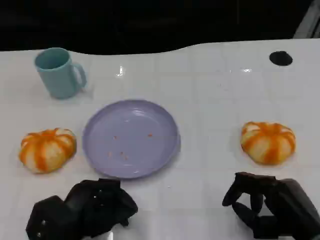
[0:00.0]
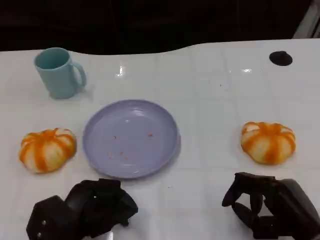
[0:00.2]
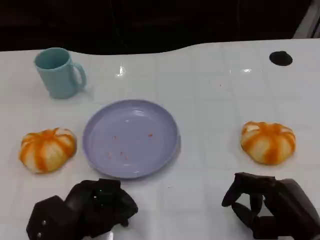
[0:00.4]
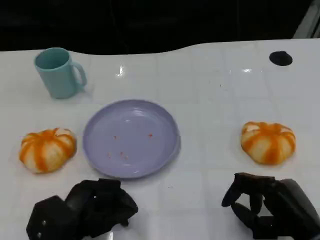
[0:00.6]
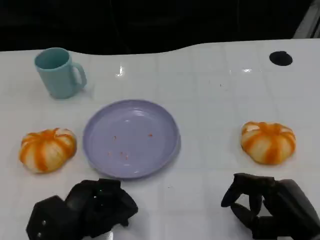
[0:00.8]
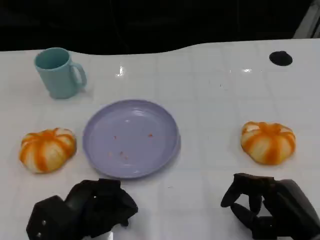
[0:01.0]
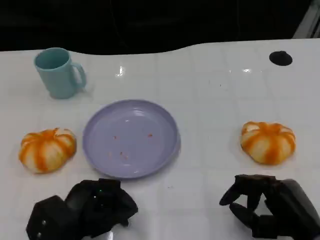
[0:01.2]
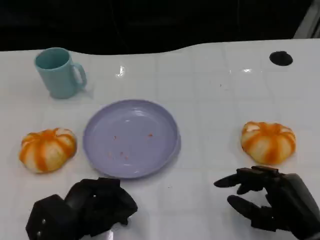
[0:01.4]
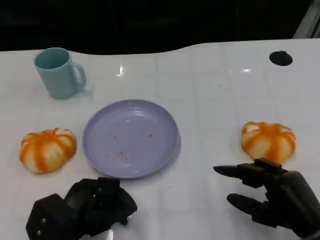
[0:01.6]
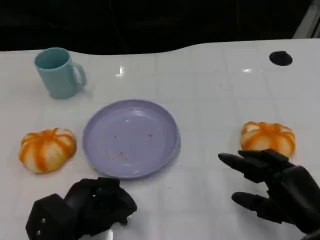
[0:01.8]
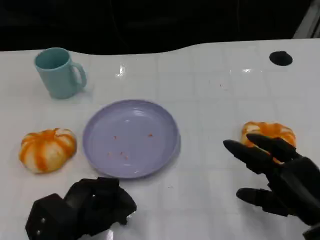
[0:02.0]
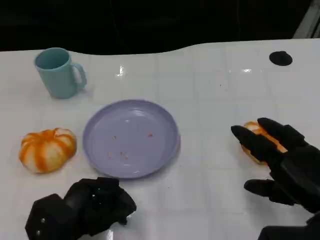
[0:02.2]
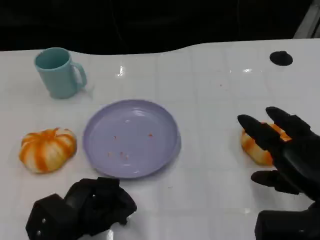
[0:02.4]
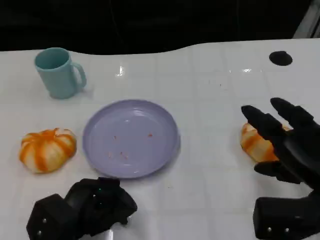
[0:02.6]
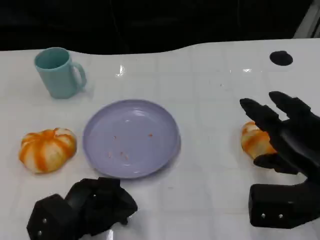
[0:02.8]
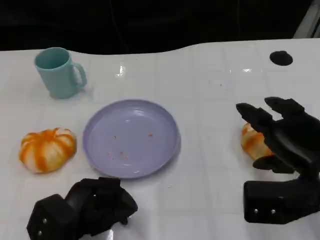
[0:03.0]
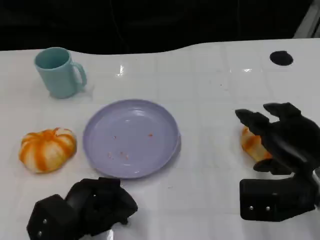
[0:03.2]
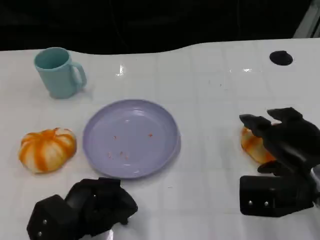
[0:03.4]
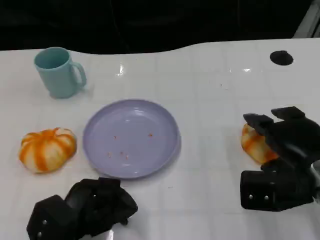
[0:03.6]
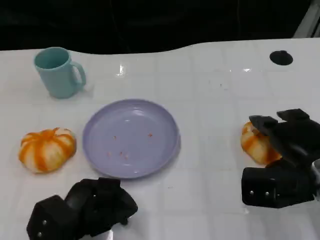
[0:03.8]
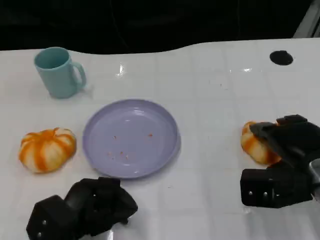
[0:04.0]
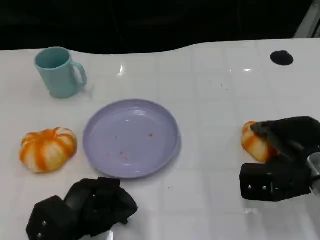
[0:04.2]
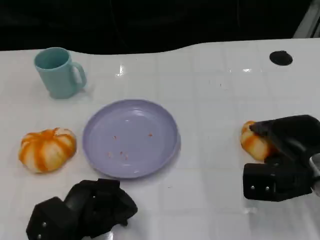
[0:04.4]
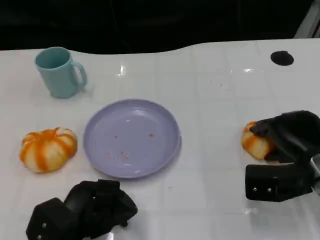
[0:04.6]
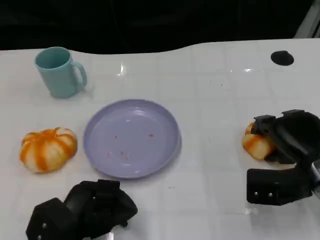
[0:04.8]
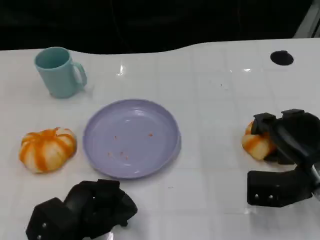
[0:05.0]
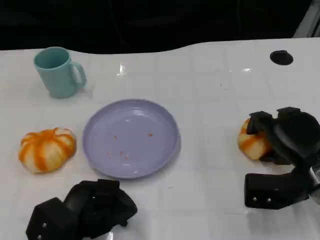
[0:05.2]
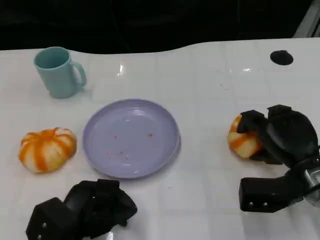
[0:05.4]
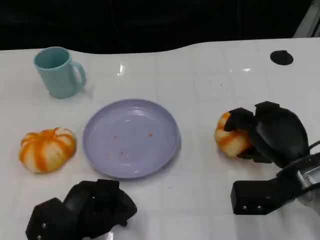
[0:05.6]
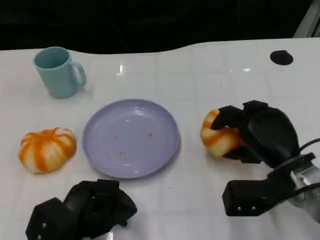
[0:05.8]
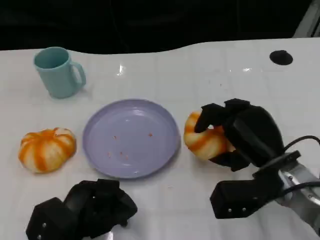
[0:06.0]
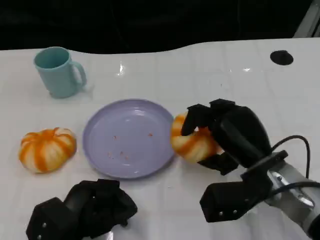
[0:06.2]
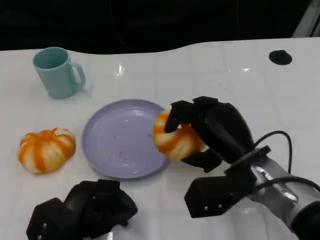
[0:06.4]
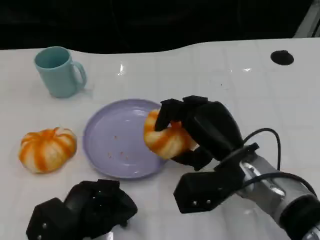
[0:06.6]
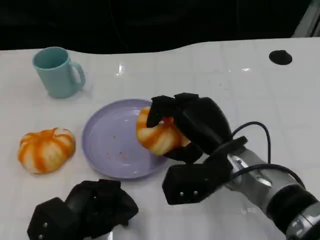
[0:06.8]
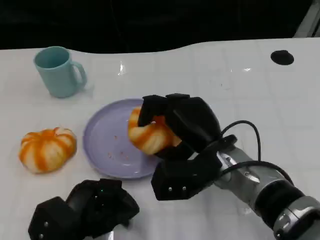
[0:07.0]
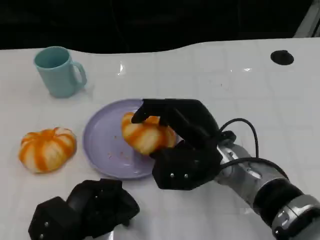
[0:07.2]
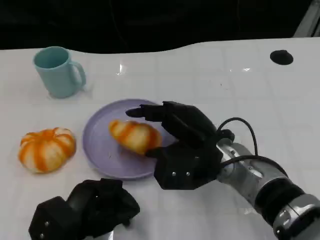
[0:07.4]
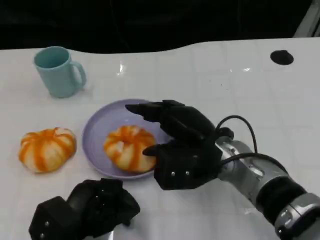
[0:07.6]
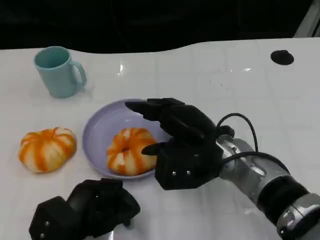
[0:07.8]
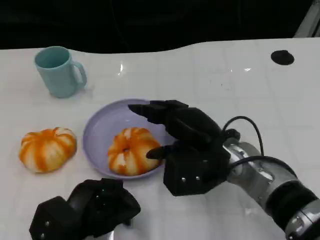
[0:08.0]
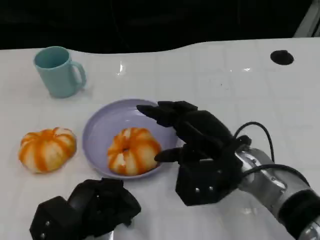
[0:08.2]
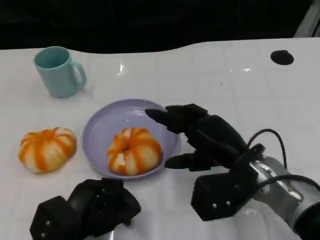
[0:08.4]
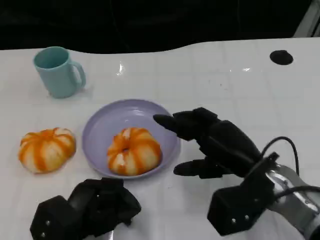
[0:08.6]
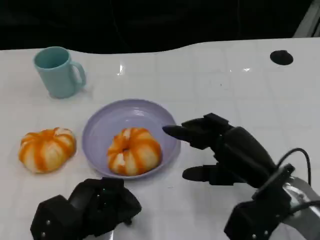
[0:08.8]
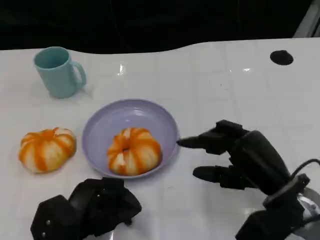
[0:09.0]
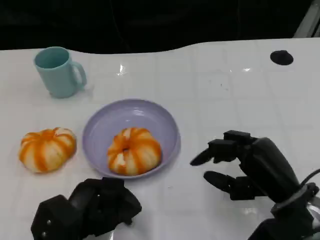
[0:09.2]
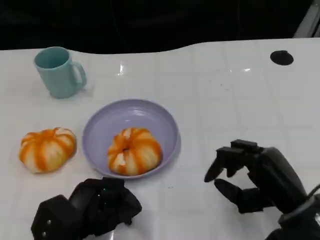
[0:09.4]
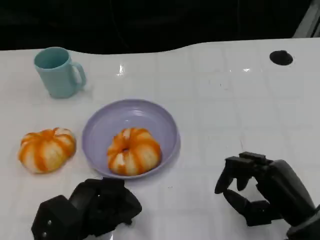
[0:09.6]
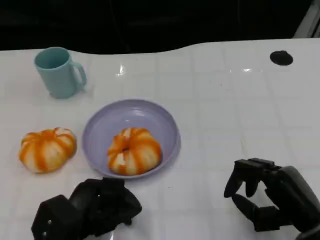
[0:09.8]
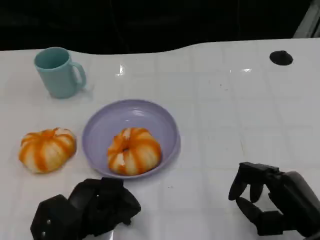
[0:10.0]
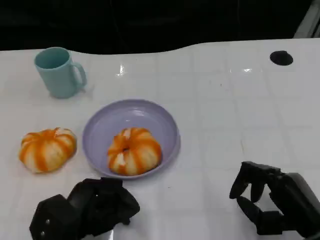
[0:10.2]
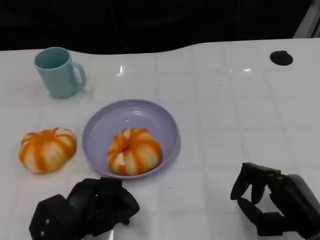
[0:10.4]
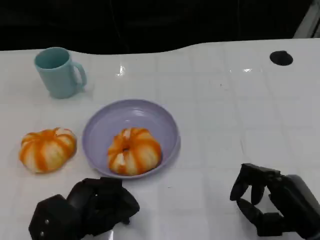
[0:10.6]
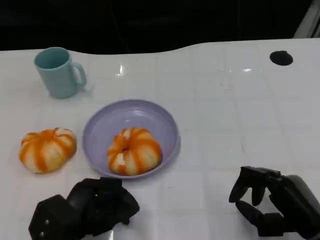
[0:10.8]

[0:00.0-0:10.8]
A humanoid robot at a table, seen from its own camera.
Task of the whole recording: Grasp the bread from the table and place it into the plate.
0:00.0 to 0:01.6: The hands move only a little.
0:01.6 to 0:03.0: The right hand moves upward and forward, roughly 10 cm.
0:03.0 to 0:04.6: The right hand moves about 5 cm.
0:04.6 to 0:06.2: The right hand shifts some 10 cm to the left.
0:06.2 to 0:07.8: The right hand travels to the left by approximately 5 cm.
0:07.8 to 0:09.2: The right hand shifts approximately 15 cm to the right and backward.
0:09.2 to 0:10.8: The right hand moves about 5 cm.

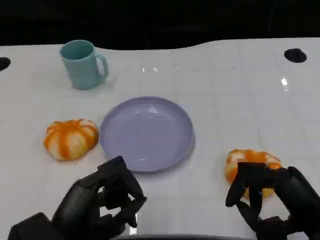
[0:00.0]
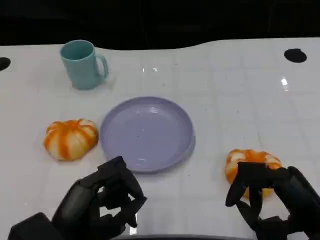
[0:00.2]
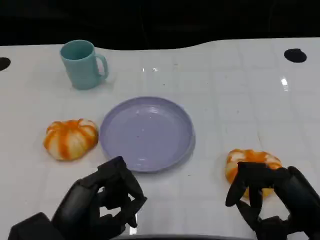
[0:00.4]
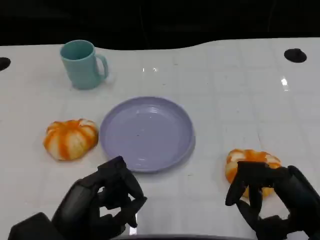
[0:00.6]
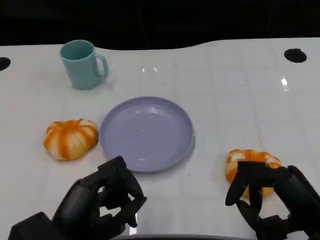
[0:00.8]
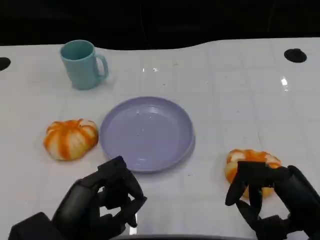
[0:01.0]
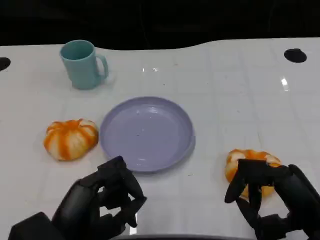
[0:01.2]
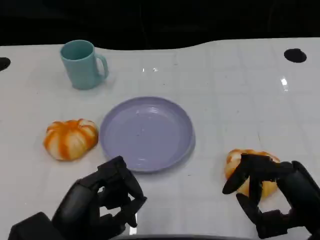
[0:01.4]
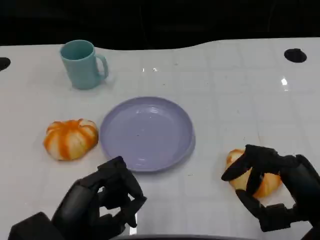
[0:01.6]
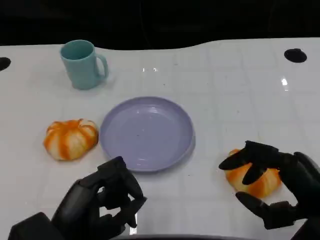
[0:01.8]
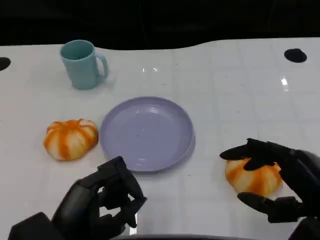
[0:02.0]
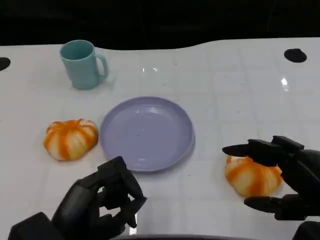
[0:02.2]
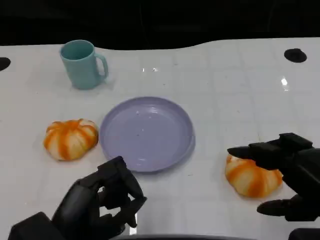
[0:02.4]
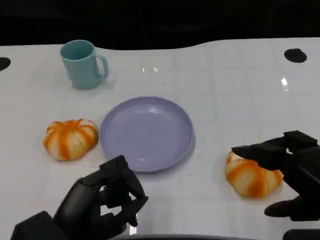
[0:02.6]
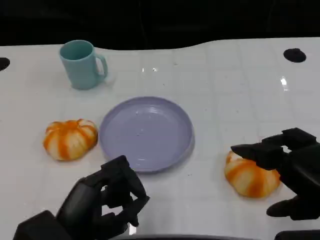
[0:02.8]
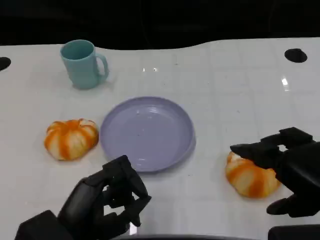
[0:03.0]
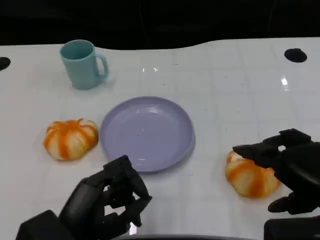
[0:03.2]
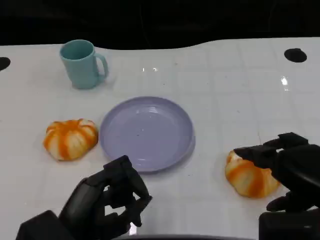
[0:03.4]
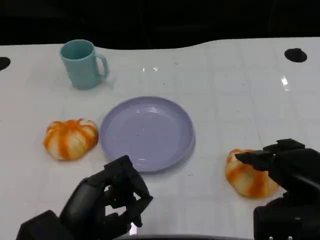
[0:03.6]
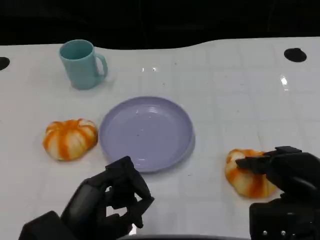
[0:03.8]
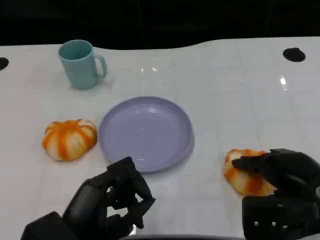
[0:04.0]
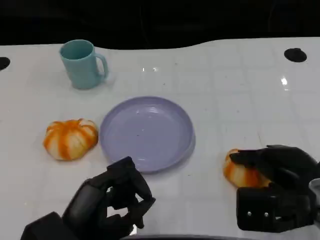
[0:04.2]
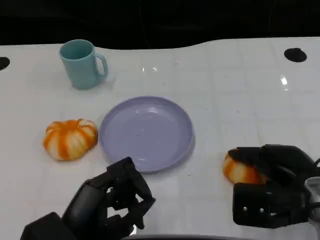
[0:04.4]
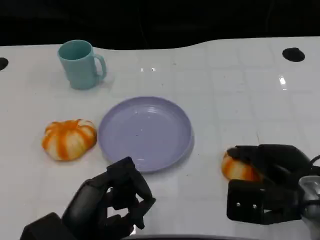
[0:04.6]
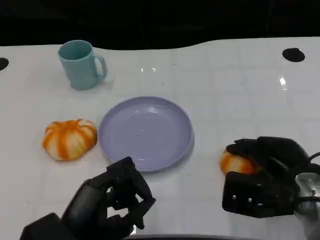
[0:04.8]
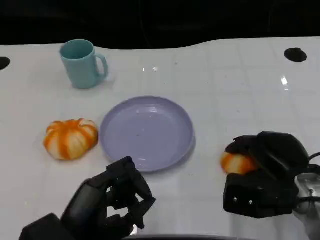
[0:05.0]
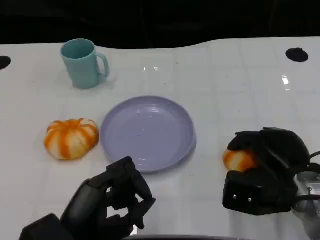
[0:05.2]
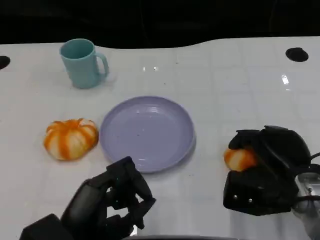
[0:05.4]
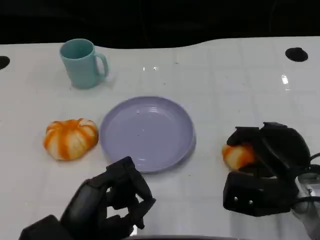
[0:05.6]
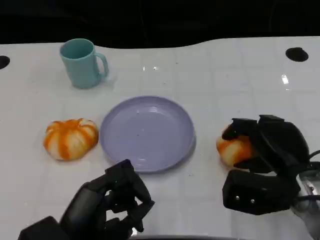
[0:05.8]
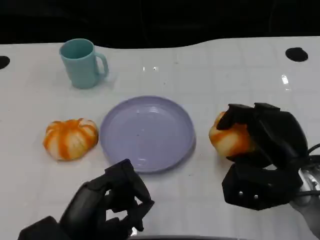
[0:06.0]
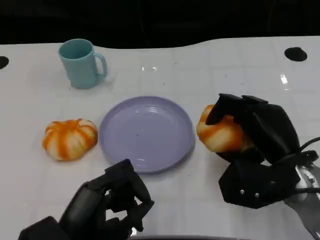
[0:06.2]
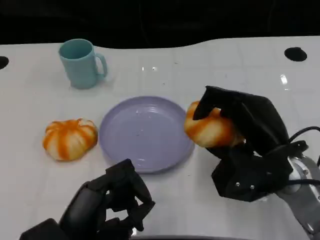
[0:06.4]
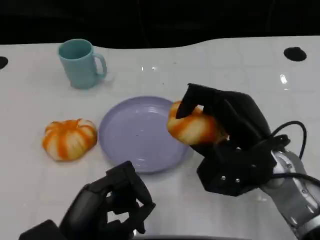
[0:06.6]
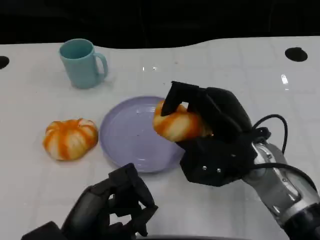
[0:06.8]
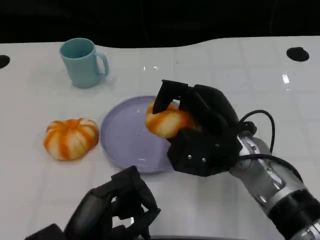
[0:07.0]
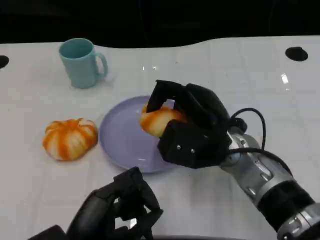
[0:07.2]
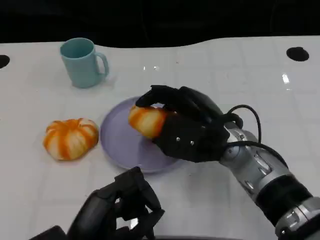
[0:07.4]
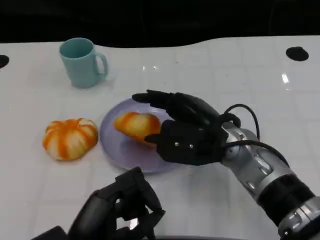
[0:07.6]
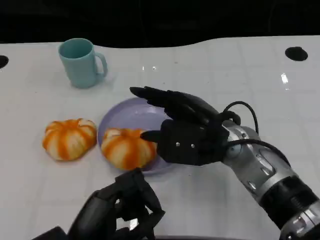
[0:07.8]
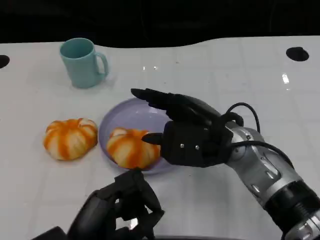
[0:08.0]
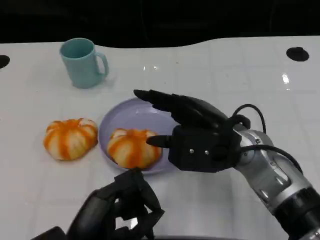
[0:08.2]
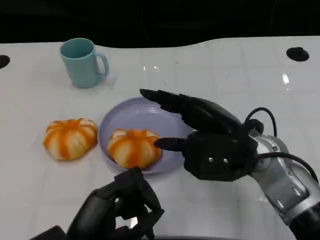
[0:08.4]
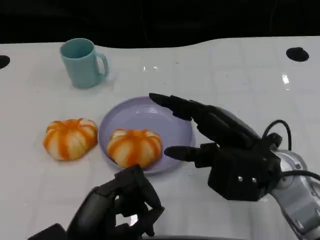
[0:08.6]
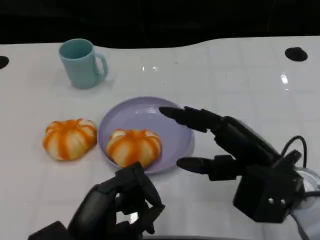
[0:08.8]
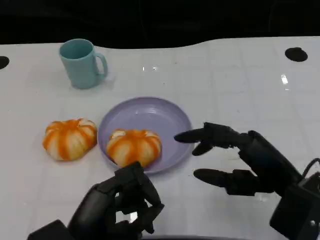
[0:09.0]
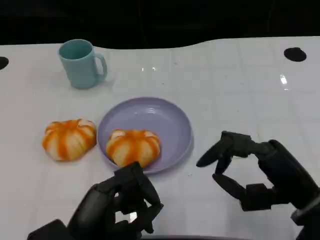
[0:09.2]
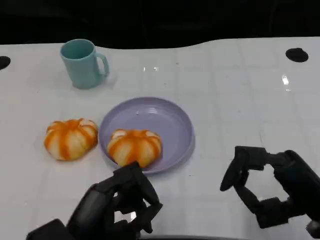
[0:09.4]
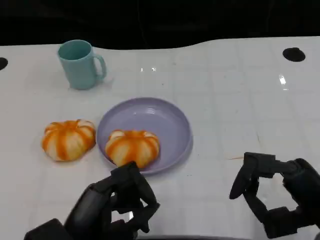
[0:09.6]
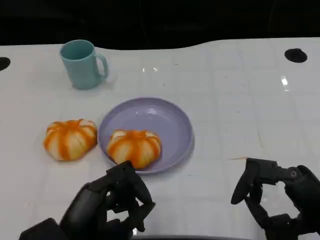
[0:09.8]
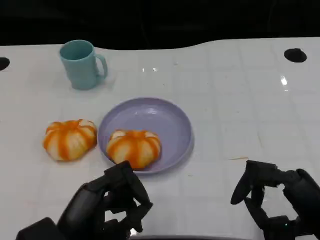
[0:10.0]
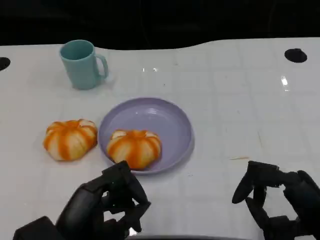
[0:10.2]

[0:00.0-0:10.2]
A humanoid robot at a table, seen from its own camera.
Task of the whole recording: Grasp the bread from the table and place it into the plate.
0:00.0 to 0:01.4: The two hands keep their place.
0:01.4 to 0:03.0: The right hand heads upward, covering about 5 cm.
0:03.0 to 0:04.4: The right hand shifts some 10 cm downward and forward.
0:05.8 to 0:07.2: The right hand heads to the left, covering roughly 10 cm.
0:07.2 to 0:08.8: The right hand goes about 10 cm to the right and backward.
0:08.8 to 0:10.2: The right hand shifts approximately 10 cm backward and to the right.

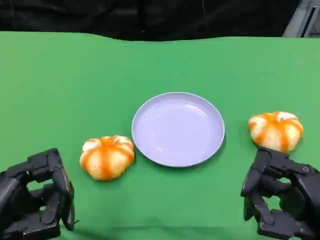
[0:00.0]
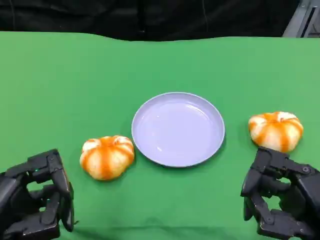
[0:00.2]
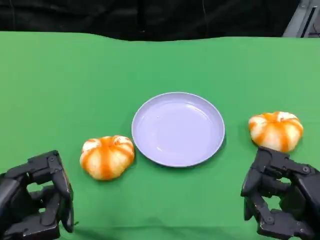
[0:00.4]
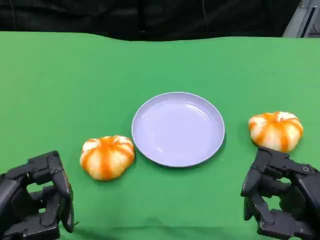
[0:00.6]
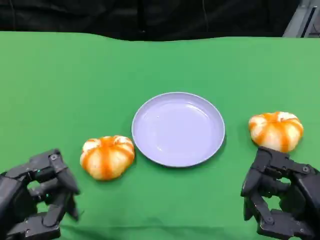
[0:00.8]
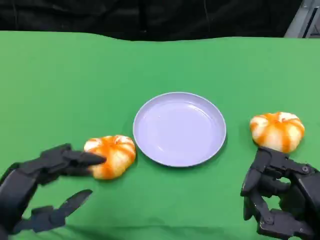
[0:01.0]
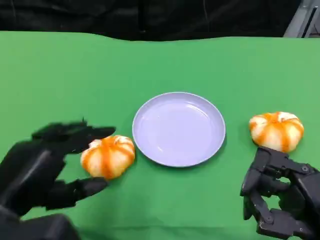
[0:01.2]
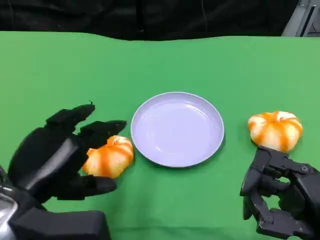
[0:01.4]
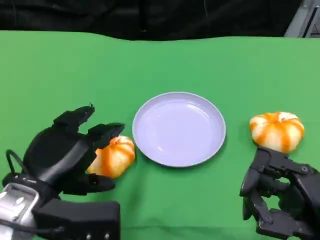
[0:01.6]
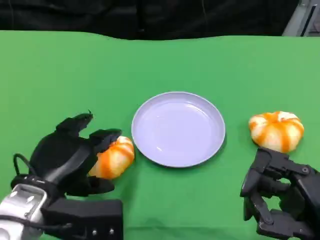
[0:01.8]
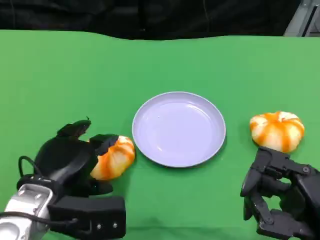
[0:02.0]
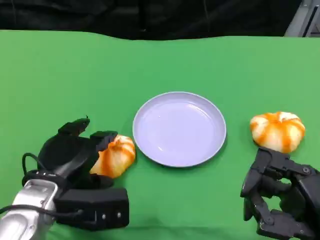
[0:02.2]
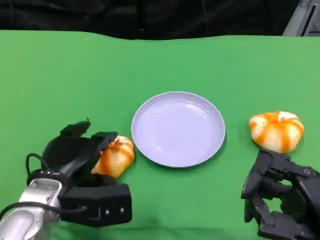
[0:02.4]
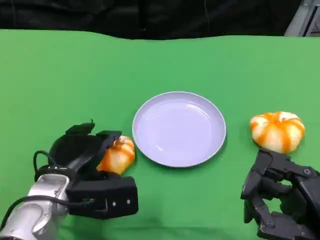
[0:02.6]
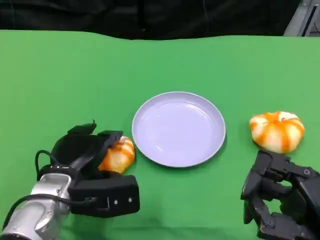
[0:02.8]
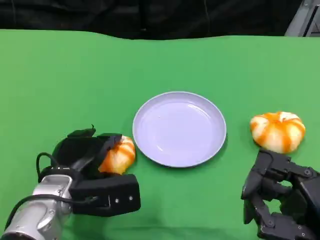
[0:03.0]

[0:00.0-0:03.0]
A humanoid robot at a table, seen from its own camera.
Task of the whole recording: Grasp the bread from the table and place it into the plate.
0:00.0 to 0:01.6: The left hand travels forward and to the right by approximately 10 cm.
0:01.6 to 0:03.0: The left hand shifts some 5 cm downward.
